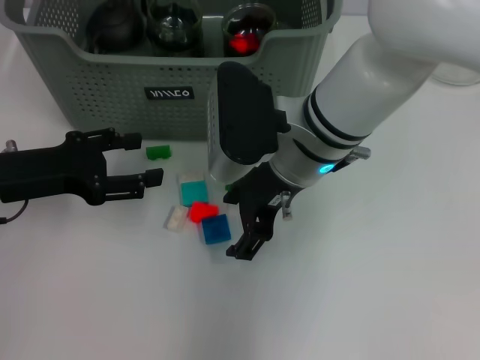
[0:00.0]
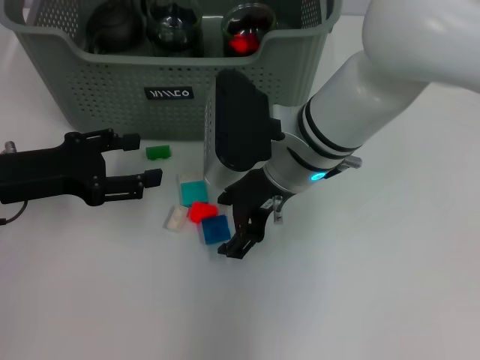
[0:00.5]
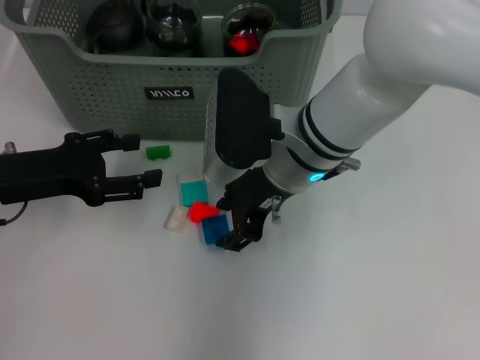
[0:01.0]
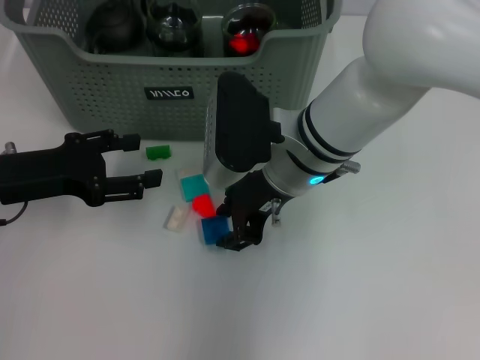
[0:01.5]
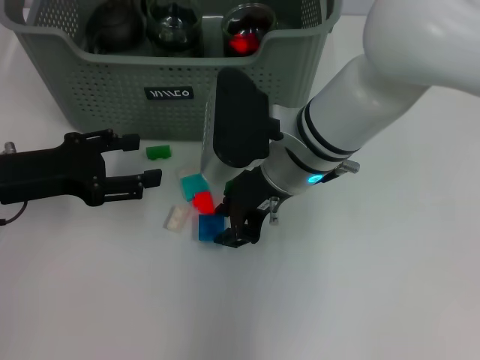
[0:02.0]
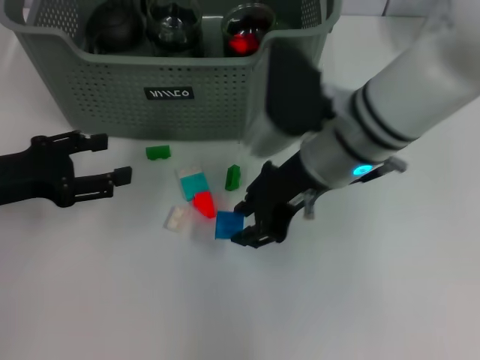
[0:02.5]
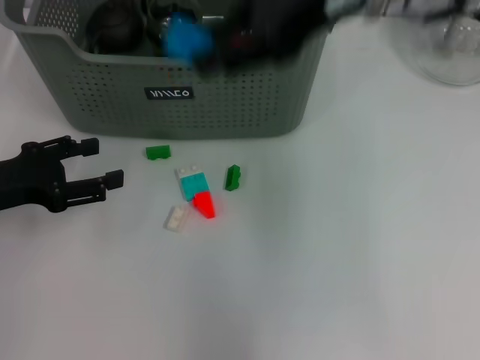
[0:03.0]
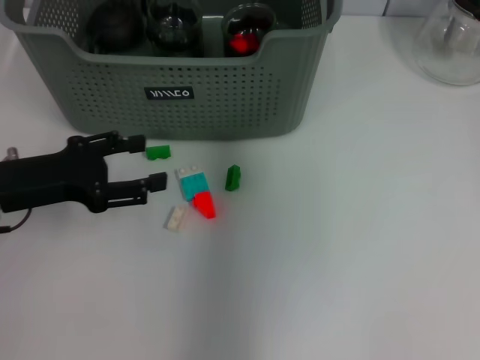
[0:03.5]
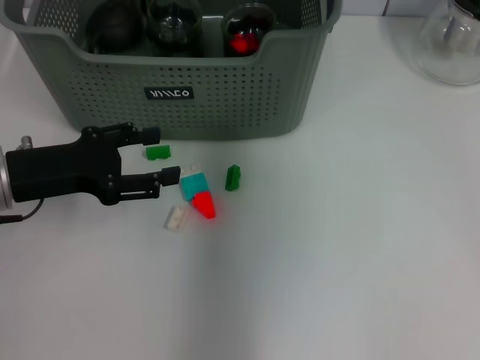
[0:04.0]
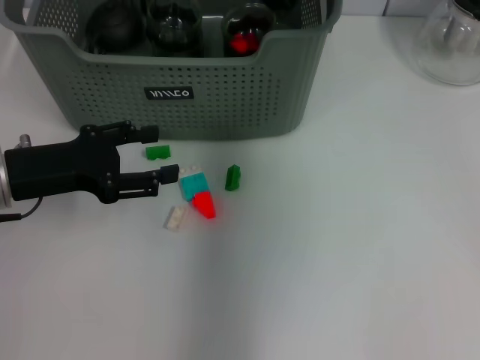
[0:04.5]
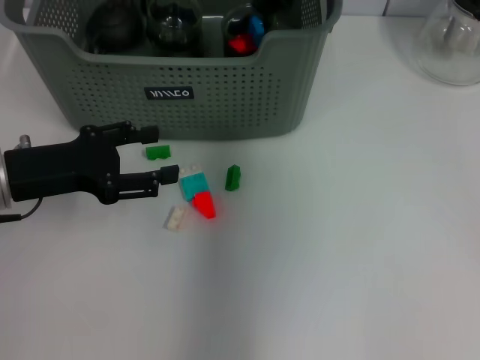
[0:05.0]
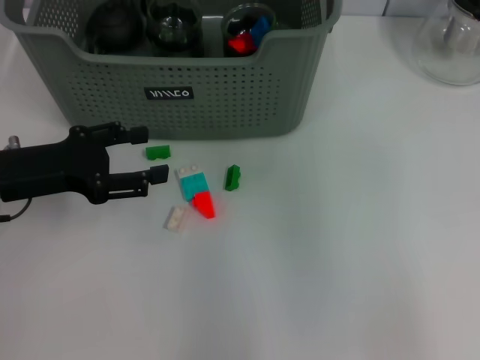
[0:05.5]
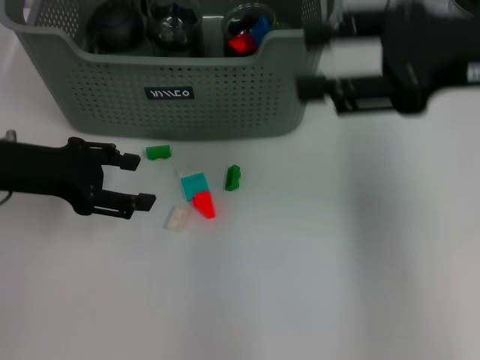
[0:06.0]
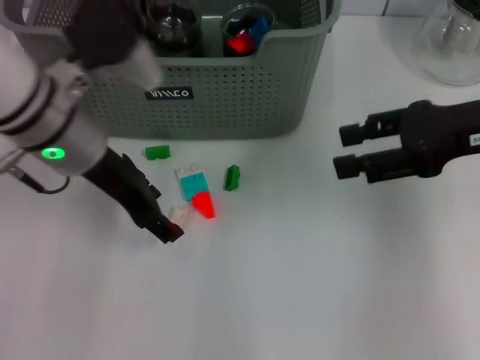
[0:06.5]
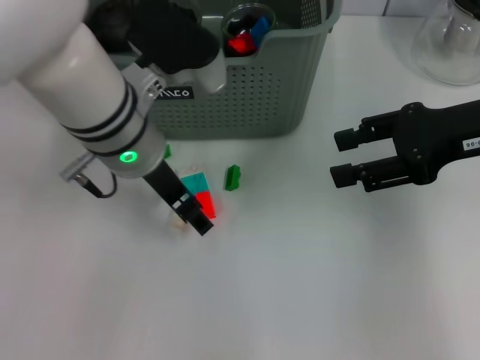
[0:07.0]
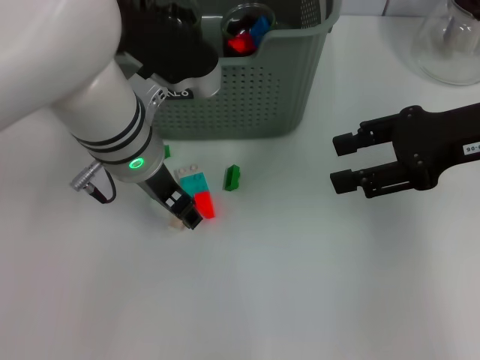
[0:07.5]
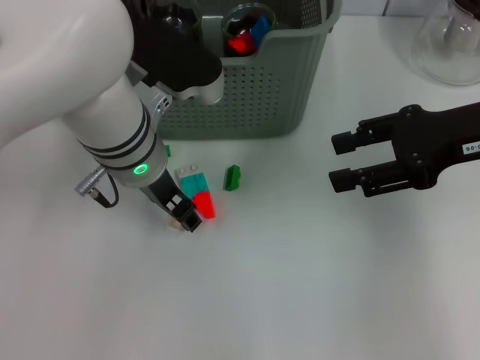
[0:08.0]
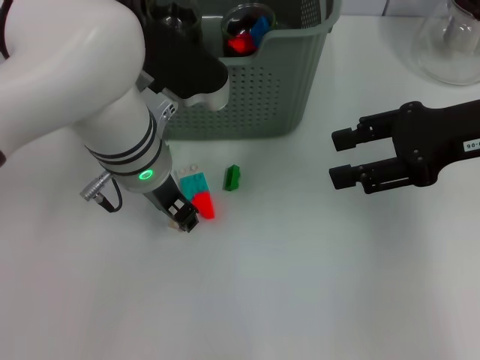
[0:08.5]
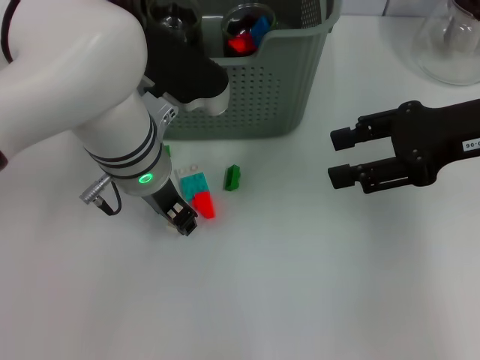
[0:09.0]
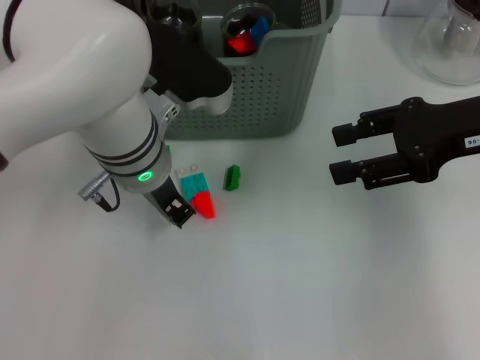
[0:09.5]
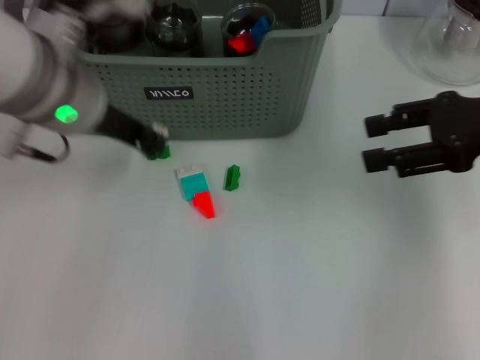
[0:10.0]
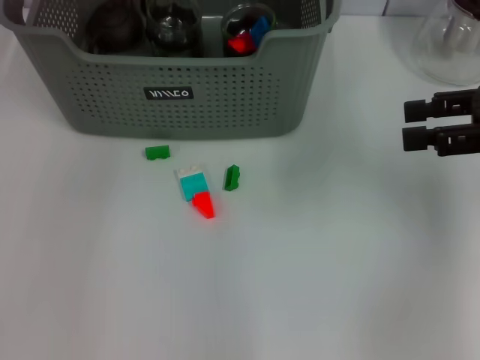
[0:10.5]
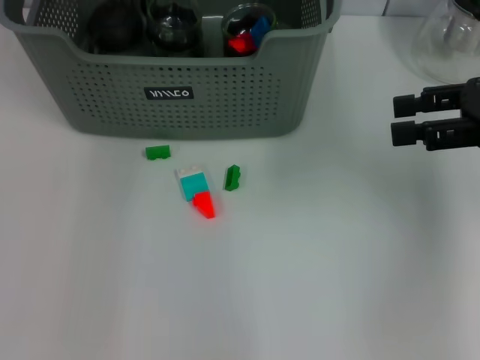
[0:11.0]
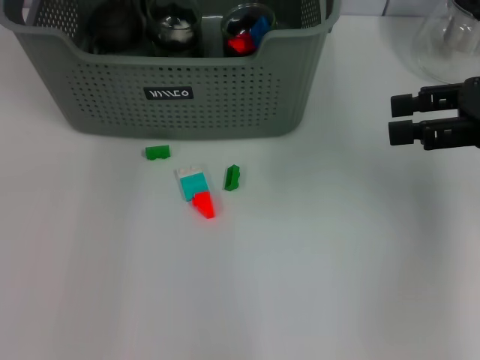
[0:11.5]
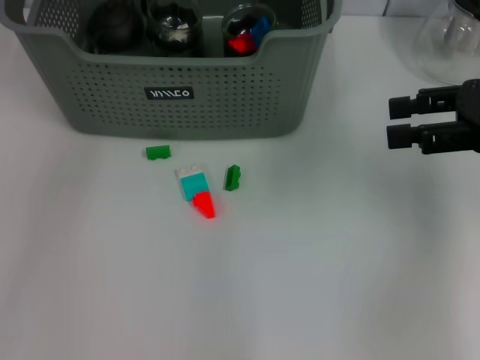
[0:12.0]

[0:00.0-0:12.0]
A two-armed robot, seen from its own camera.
Task of the whole recording: pick up the teacup on the table and place it into the storage bin, pick up the block on the table and place it into the storage bin.
Step, 0:02.0 to 0:05.0: Place the dark blue block in the storage box with right gripper.
Step, 0:05.5 to 0:09.0: Grasp the white block with left gripper.
Step, 0:09.5 to 0:11.0: Place the white block in the storage box with left gripper.
0:00.0 to 0:02.0: The right gripper closes its fingers.
0:02.0 to 0:04.0: The right gripper heads forward and upward, covering approximately 20 cm.
0:04.0 to 0:06.0: The right gripper moves backward and to the right, about 20 cm.
0:06.0 to 0:08.0: The left gripper shifts some 20 cm to the right, while the right gripper is displaced downward by about 5 cm.
0:08.0 to 0:10.0: The left gripper moves upward and to the left, some 10 cm, and closes its fingers.
0:10.0 to 0:12.0: The left gripper moves forward and upward, some 10 cm, and opens.

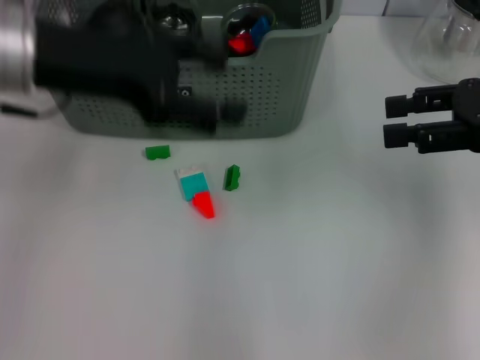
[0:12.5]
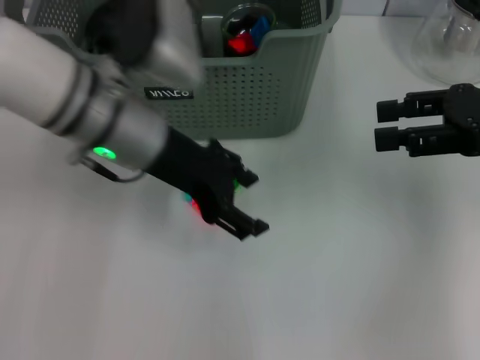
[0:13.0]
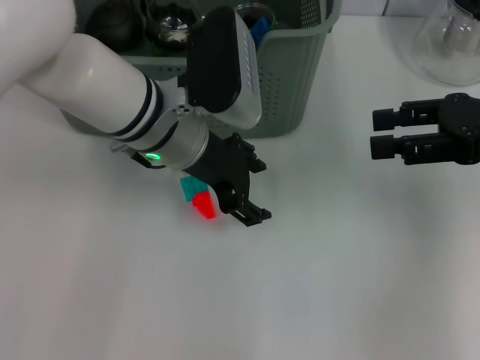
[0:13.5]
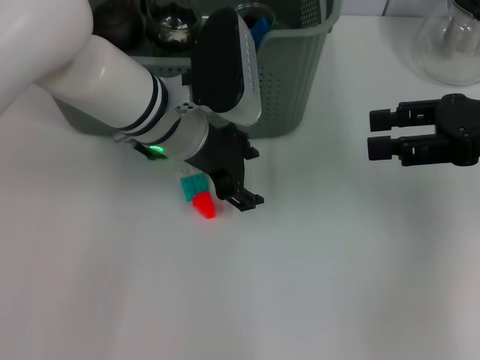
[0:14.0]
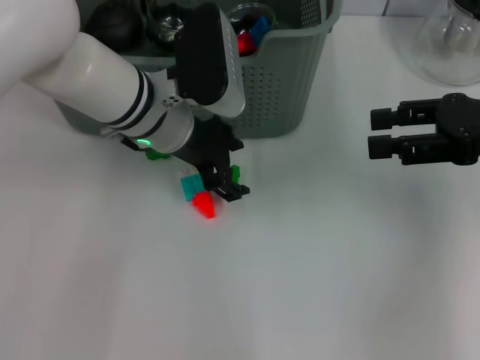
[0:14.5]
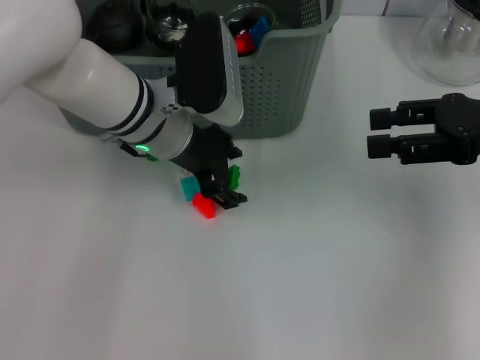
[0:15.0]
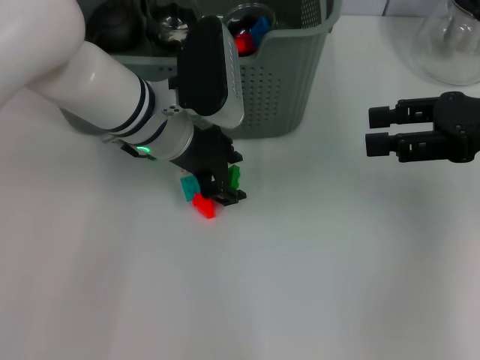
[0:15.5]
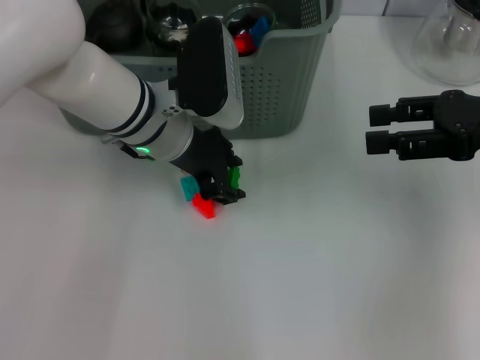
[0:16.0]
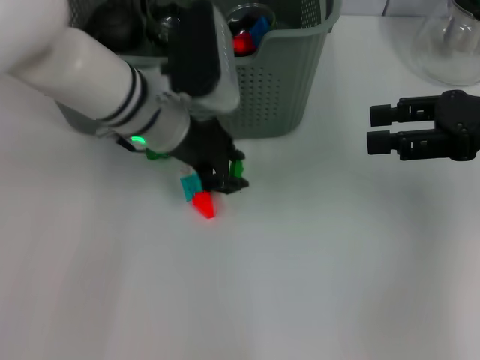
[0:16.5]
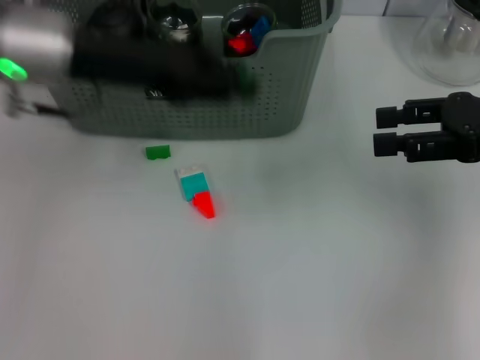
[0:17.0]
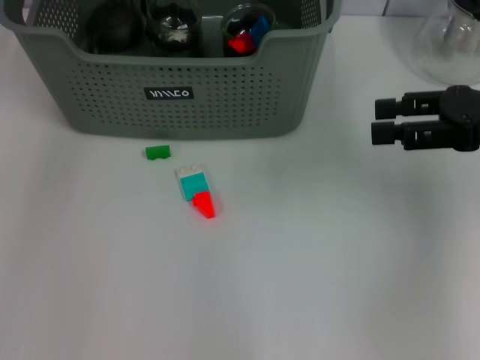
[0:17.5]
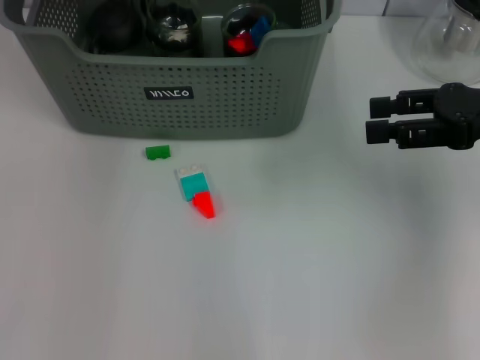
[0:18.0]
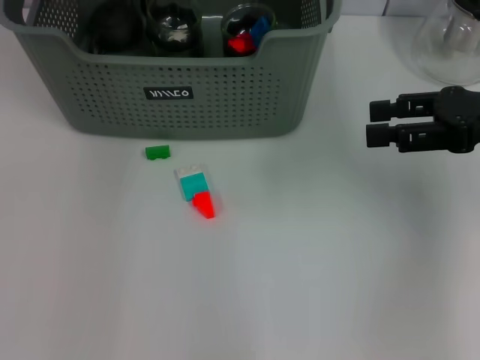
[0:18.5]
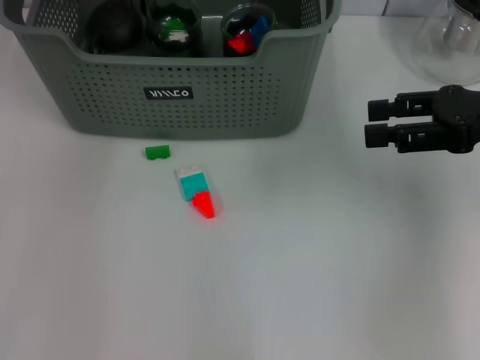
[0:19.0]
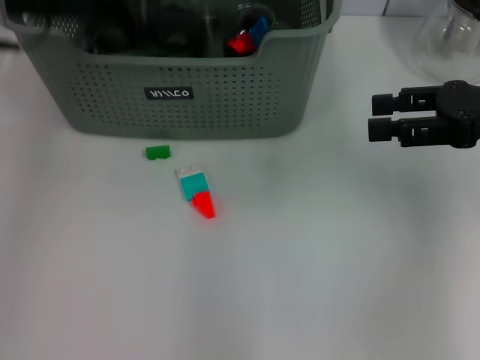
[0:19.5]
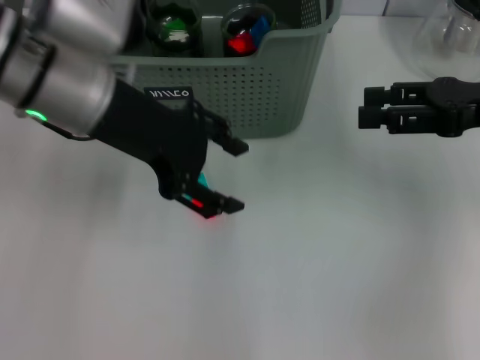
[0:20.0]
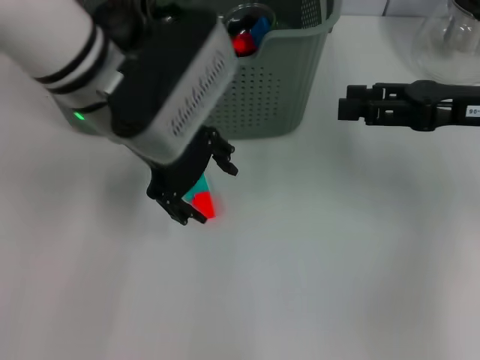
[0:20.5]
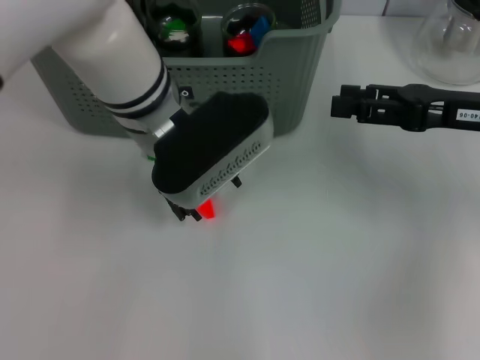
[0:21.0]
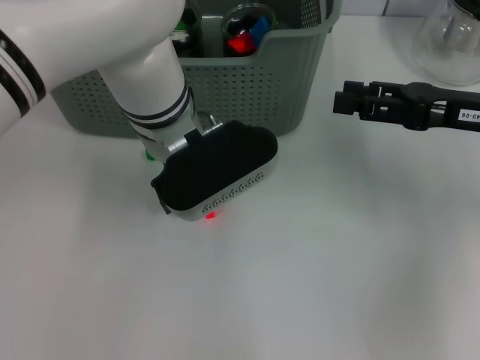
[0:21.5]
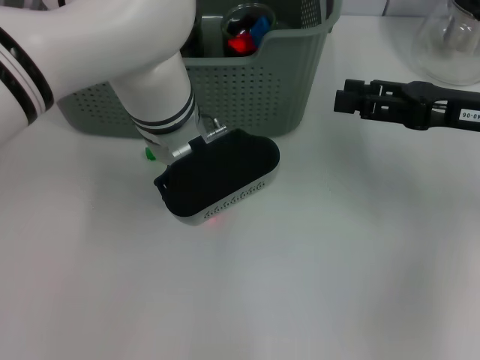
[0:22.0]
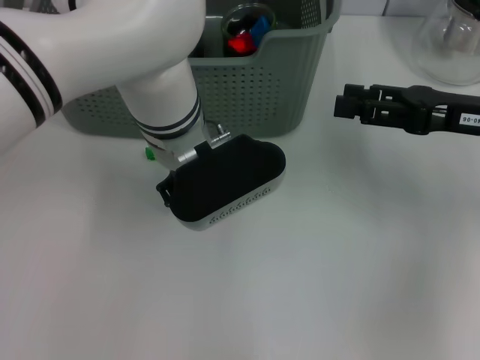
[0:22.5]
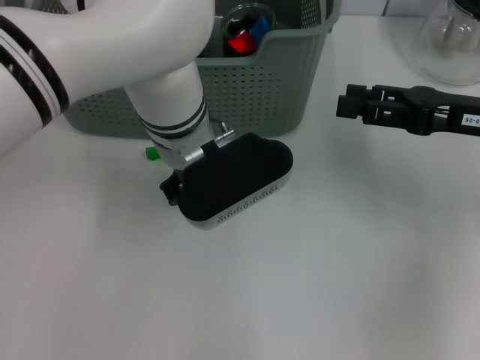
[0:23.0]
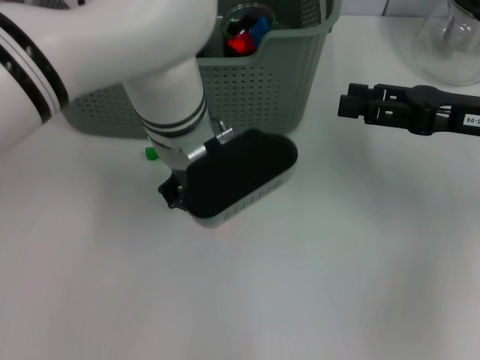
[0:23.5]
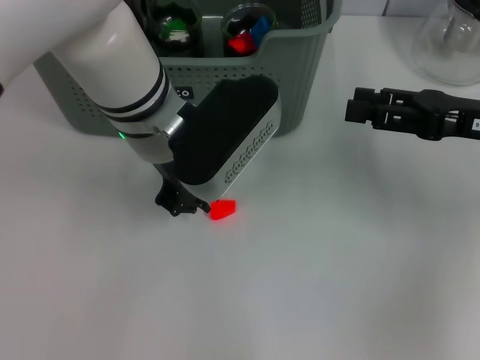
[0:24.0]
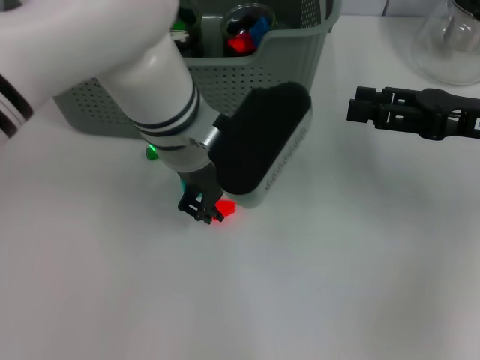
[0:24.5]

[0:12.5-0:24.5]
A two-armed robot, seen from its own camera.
Task of the whole recording: pick up the teacup on the table and place it into the storage bin, pick up the block on the table and place it into the storage bin.
0:12.5 to 0:14.5: The left gripper moves downward, to the right and forward, some 15 cm.
0:14.5 to 0:16.5: The left gripper closes up.
0:16.5 to 0:18.5: The left gripper heads forward, upward and to the left, covering roughly 15 cm.
0:18.5 to 0:20.5: The left gripper moves backward, roughly 15 cm, and opens.
0:20.5 to 0:22.5: The left gripper moves downward and to the right, roughly 10 cm.
0:22.5 to 0:24.5: The left gripper closes up.

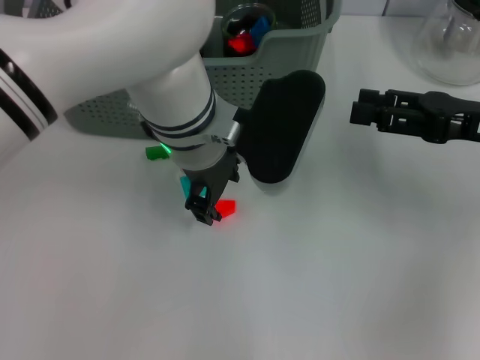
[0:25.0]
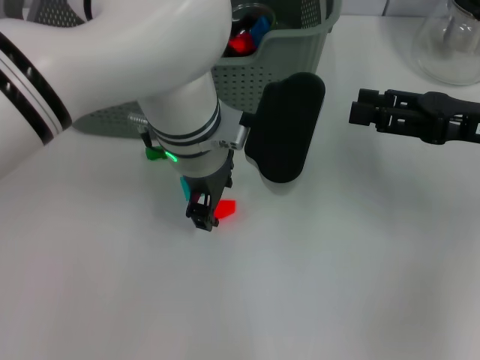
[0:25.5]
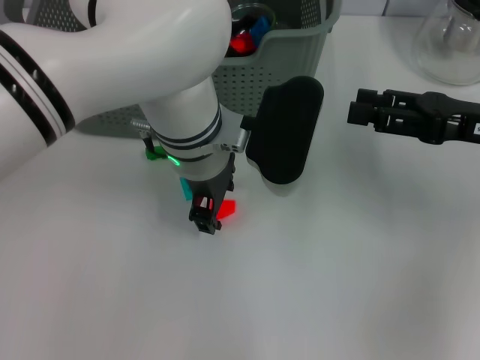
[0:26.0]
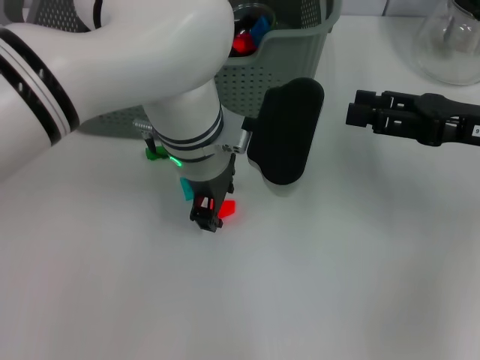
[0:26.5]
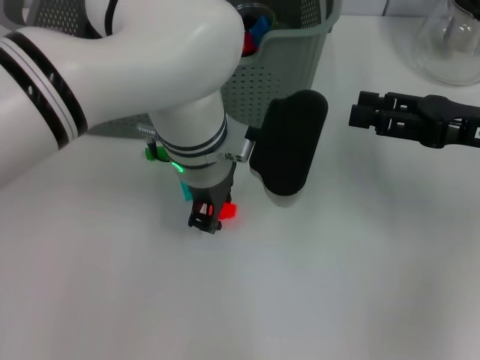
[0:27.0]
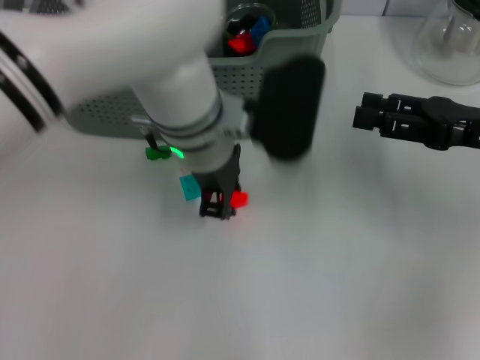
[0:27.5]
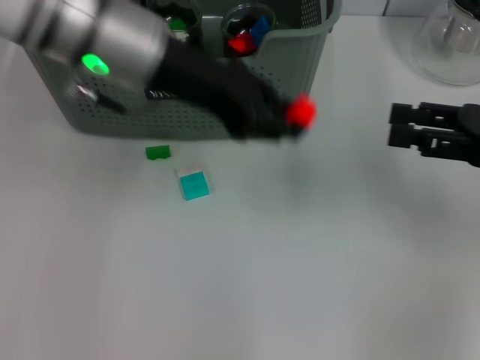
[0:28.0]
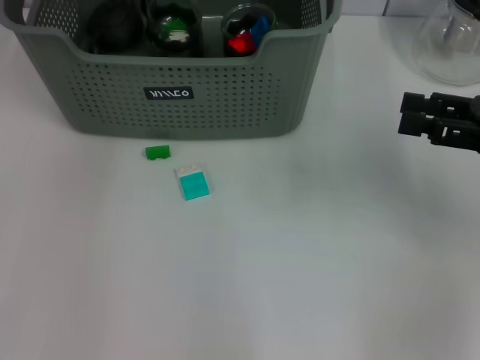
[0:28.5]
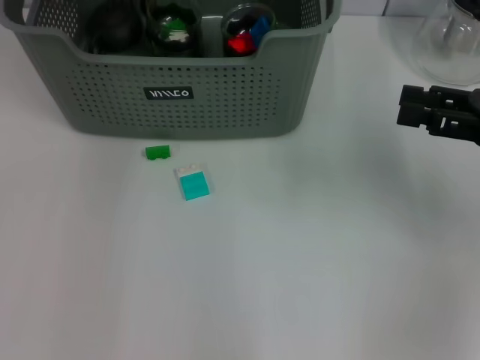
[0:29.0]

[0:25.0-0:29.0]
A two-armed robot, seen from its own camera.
Task of the whole recording: pick up the teacup on the table and place it into the storage bin, pick up the block on the table and place it into the storage bin.
Step, 0:25.0 to 0:27.0: Grasp the orange block with left gripper.
0:25.0 to 0:27.0: The grippers move only a little.
0:27.0 to 0:29.0: The left gripper shifts roughly 20 cm forward, to the left and upward.
